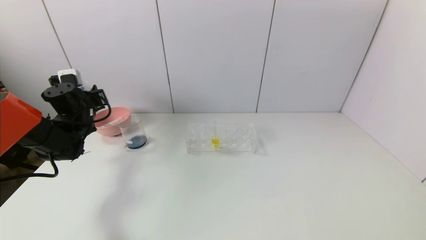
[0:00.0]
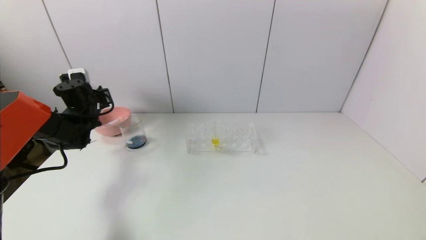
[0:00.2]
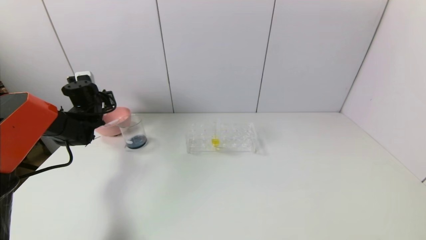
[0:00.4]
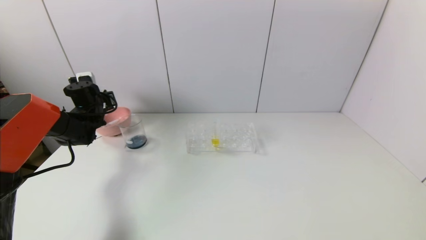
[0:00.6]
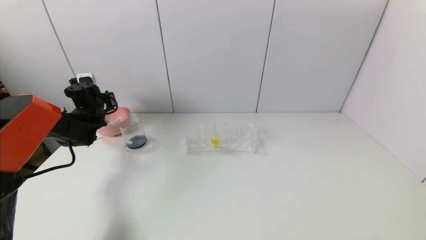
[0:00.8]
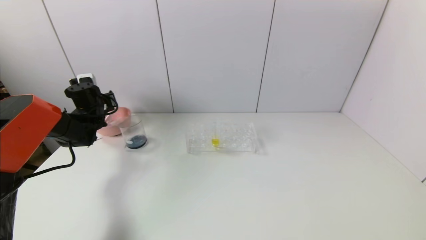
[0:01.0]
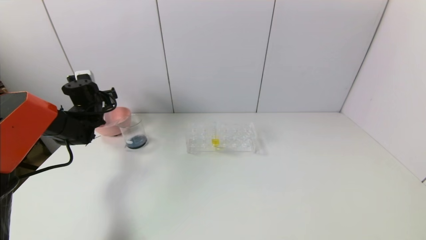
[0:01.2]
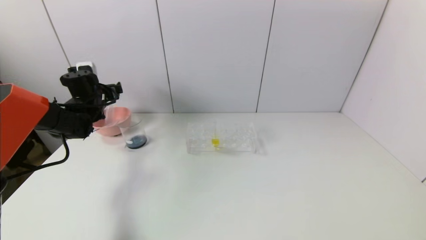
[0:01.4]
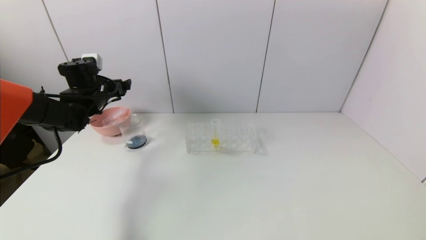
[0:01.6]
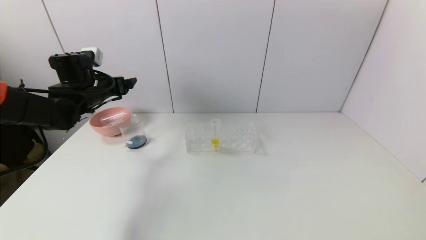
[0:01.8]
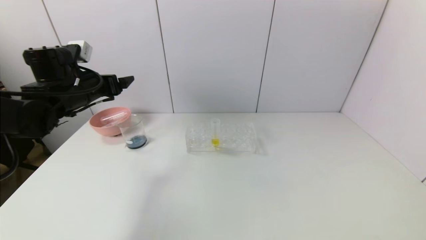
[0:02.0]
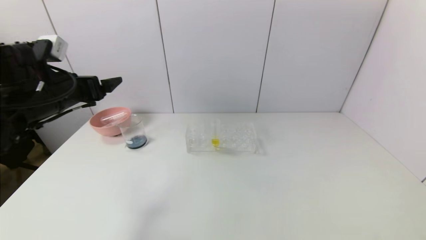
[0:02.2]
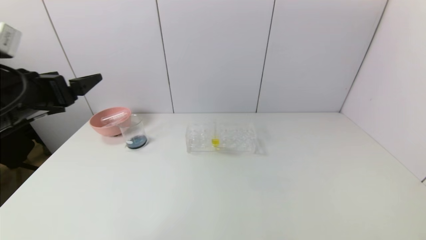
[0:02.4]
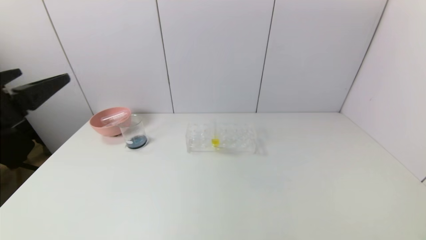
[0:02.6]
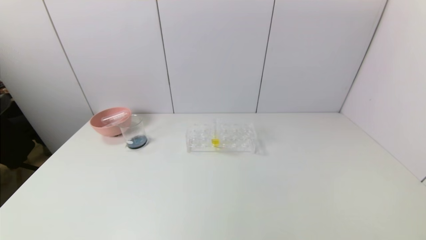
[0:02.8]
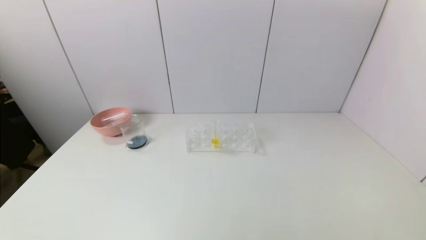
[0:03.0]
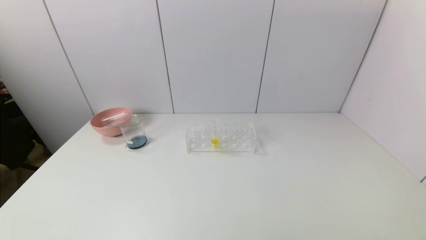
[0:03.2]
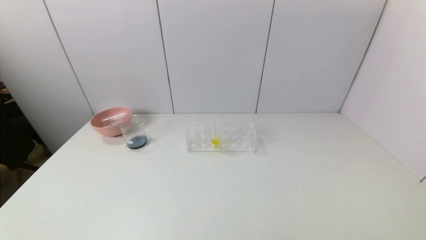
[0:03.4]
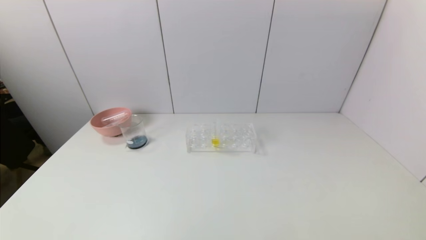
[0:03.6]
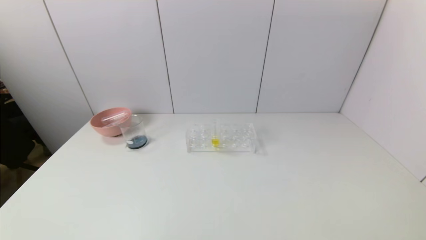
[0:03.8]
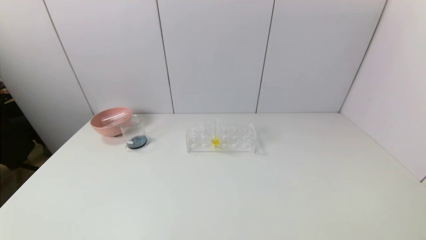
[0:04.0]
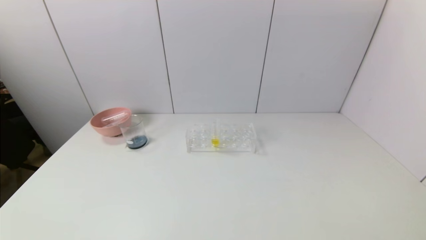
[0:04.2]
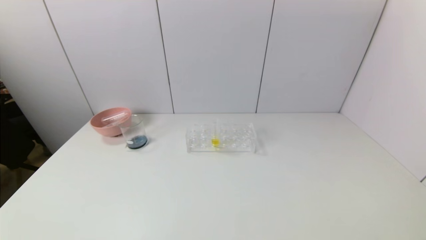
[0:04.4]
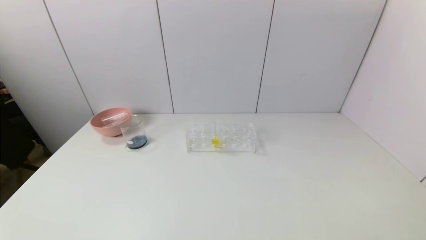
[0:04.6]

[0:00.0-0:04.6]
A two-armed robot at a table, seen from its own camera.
Task of the whole recording: pick up the test tube with red pigment and the test tube with blue pigment by grippers and pour them into the container.
0:00.0 to 0:01.6: The left gripper shifts by some 5 cm, and opens up.
0:01.6 to 0:03.0: The left gripper is displaced backward by some 40 cm.
